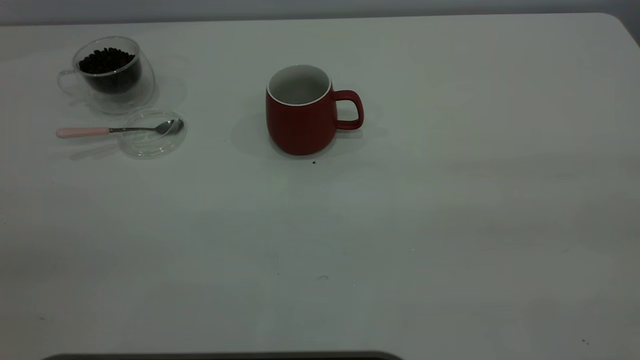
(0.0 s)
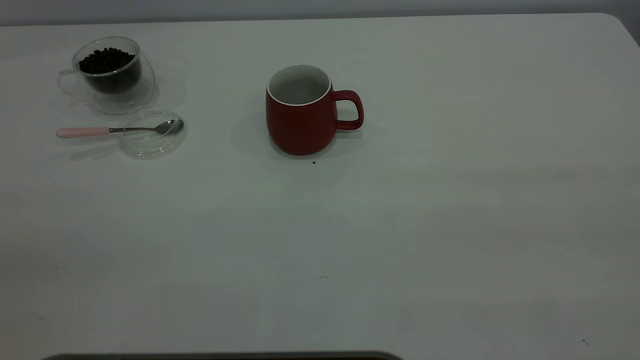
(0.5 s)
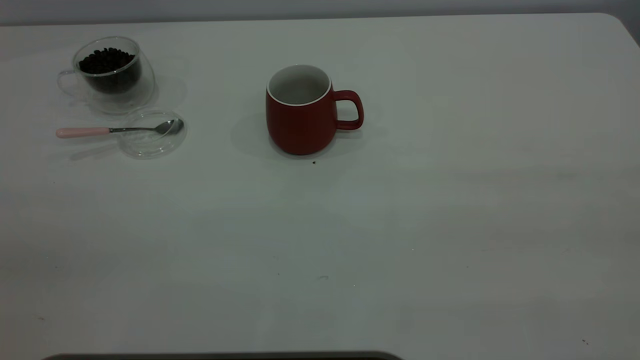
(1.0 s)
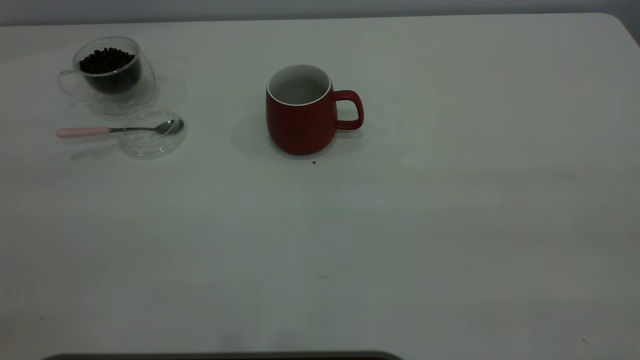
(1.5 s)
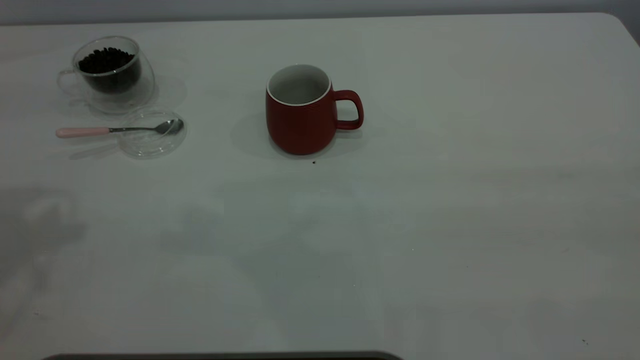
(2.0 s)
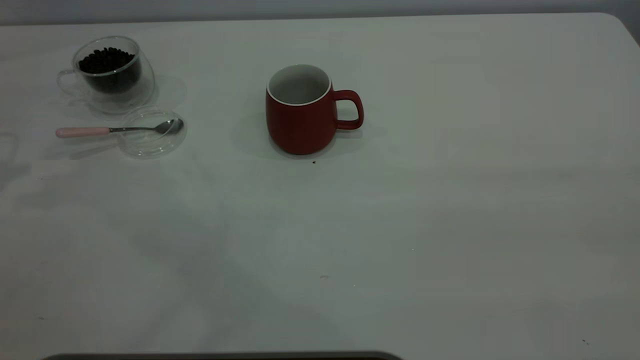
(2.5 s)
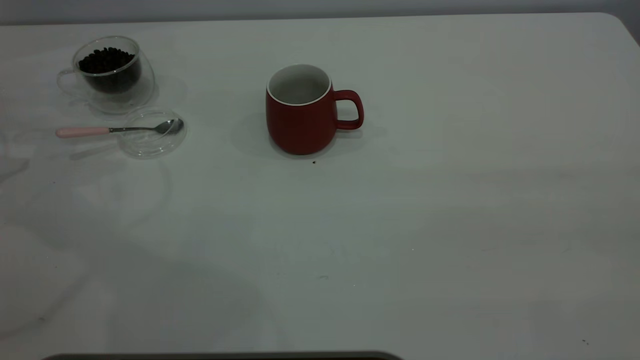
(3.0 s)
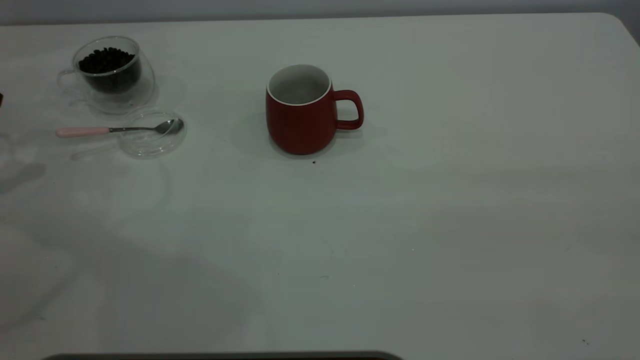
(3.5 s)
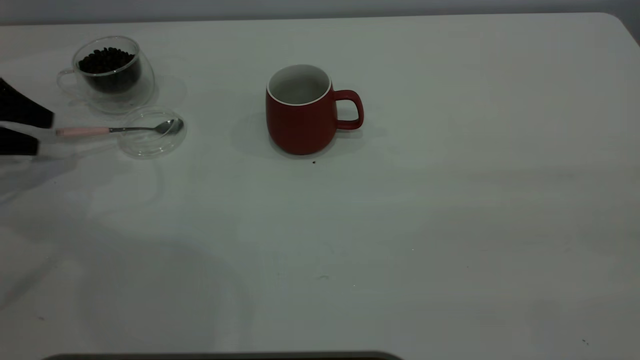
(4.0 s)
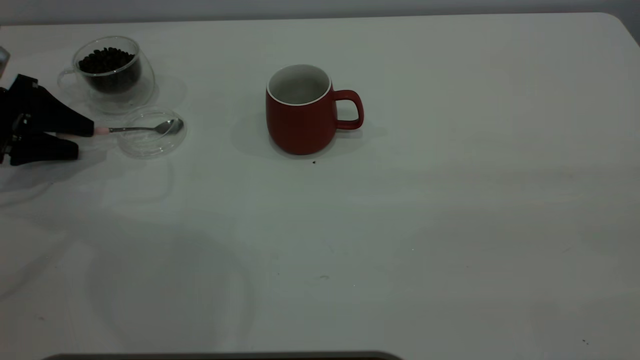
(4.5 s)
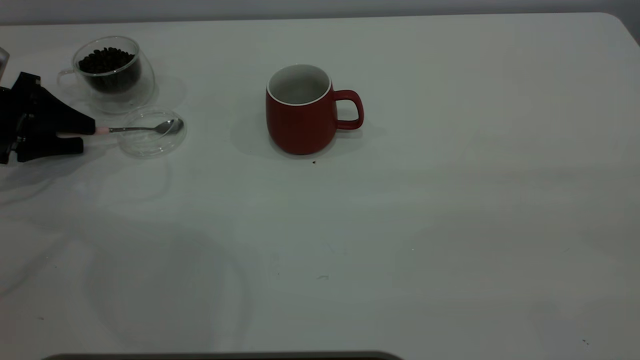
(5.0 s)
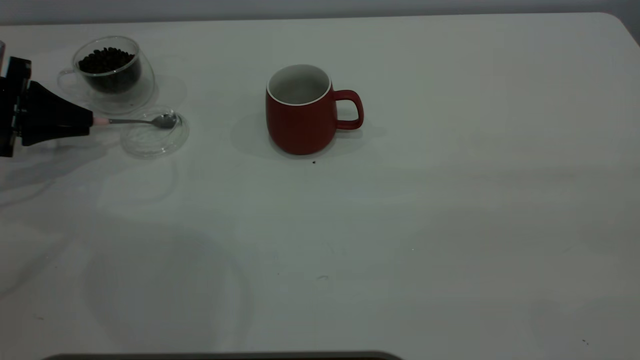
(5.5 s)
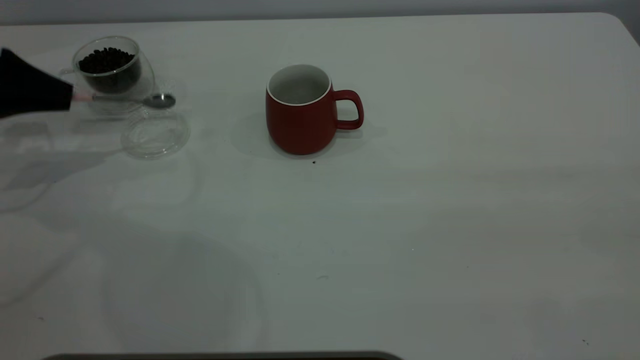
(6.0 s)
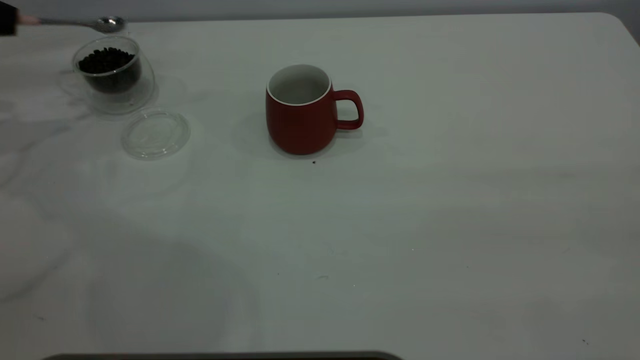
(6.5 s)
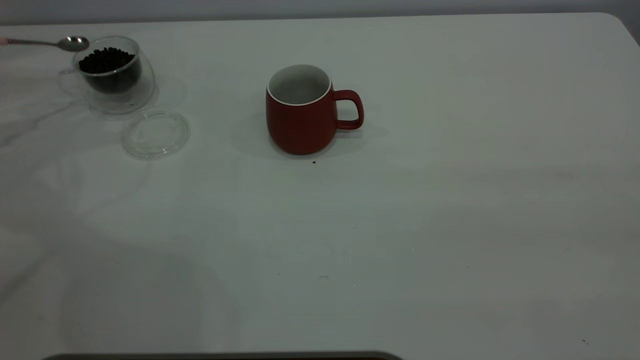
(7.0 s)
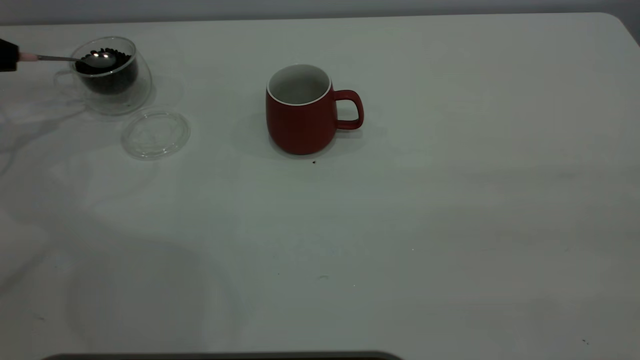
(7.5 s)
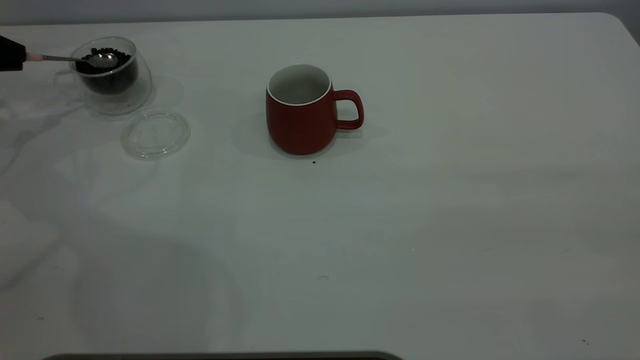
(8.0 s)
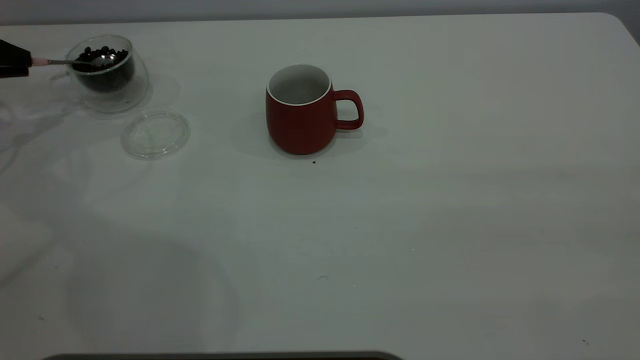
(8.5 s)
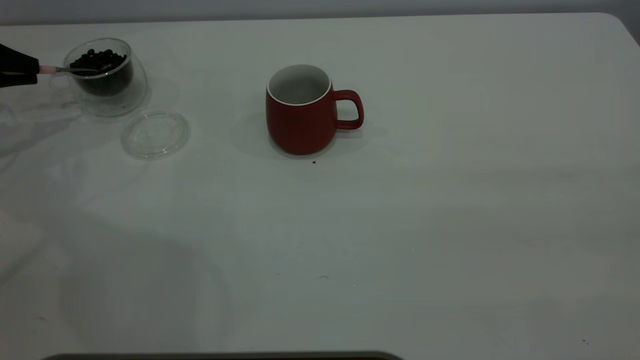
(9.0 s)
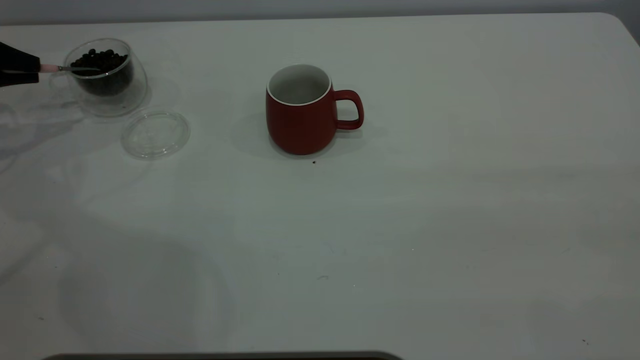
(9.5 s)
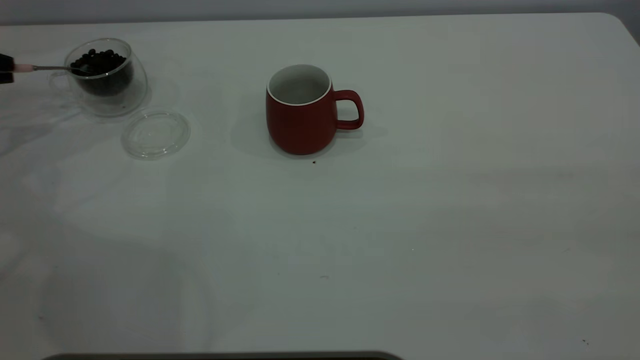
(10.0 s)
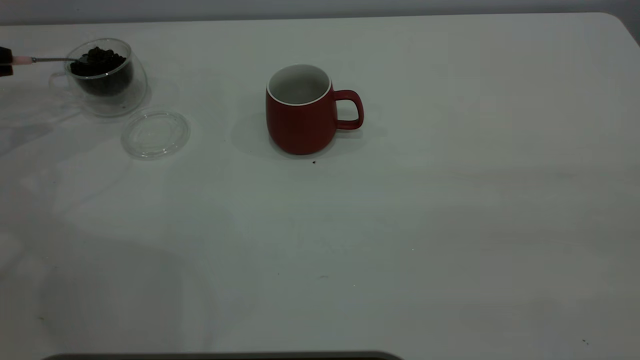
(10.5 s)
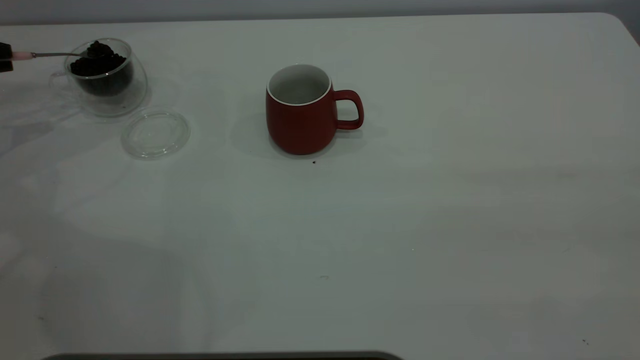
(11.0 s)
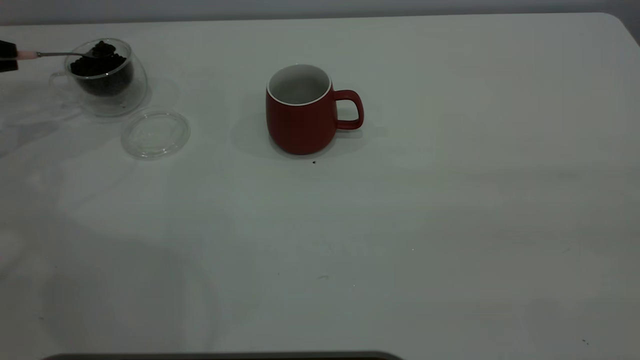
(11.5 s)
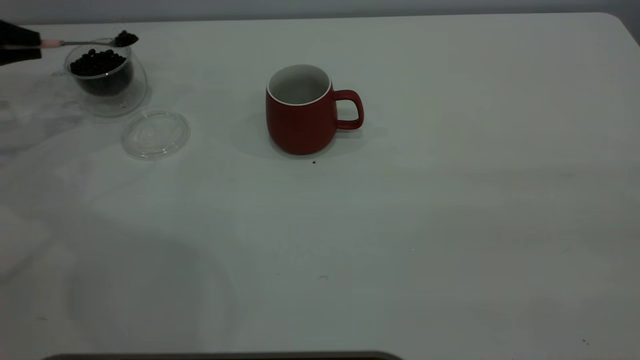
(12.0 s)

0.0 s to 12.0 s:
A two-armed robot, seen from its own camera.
Task of the whole recording: the right gripper place the red cup in the center of the table, the left gripper take the pink spoon from the cup lid and scoop out the coffee beans from the coffee cup and put them into the red cup, the left gripper put the spoon back into the cup lid.
Step, 0.0 to 6.0 s: Pick up the spoon.
2.0 to 4.0 s: The left gripper goes about 30 cm downward, to the left and forward.
4.0 to 6.0 s: The left gripper closes up.
6.0 to 8.0 s: The left gripper goes some 5 cm to the left.
8.0 to 10.0 s: The grippers move only a little.
10.0 to 12.0 s: The grippers make only small movements.

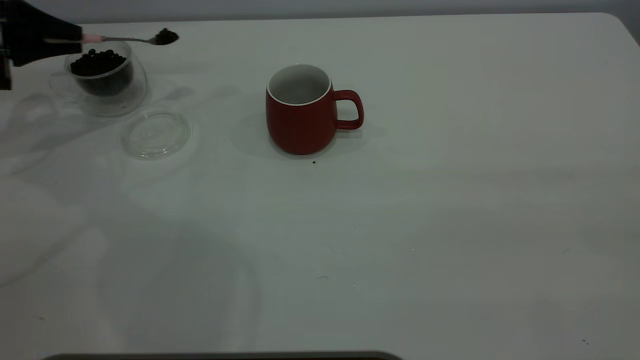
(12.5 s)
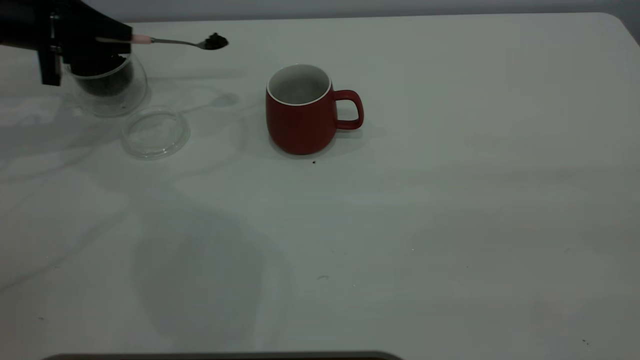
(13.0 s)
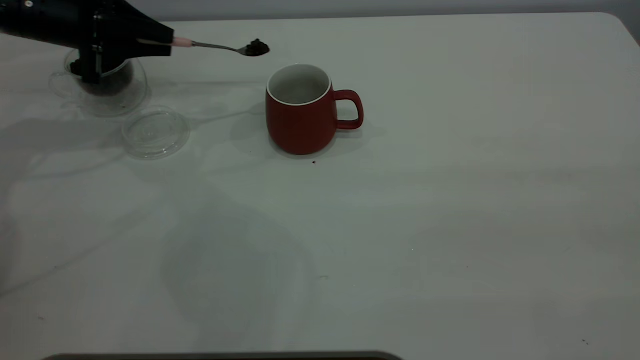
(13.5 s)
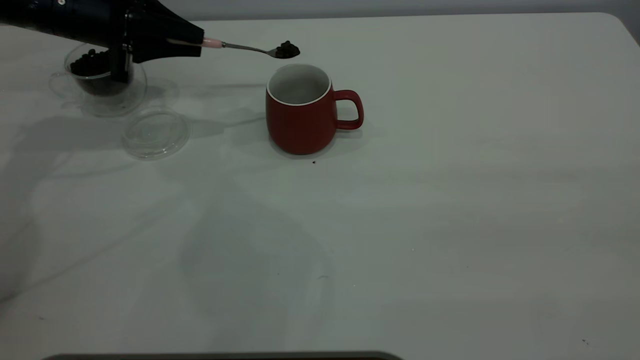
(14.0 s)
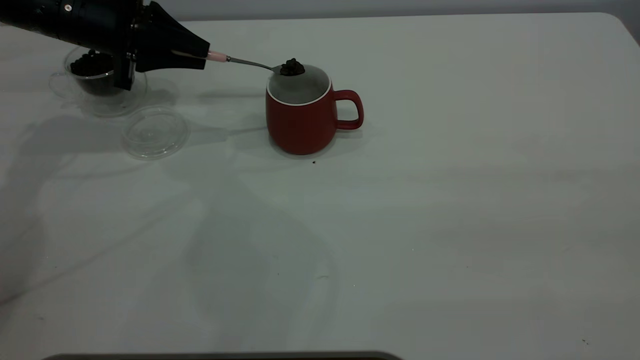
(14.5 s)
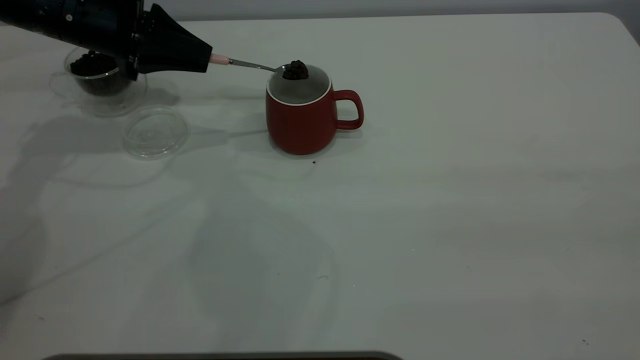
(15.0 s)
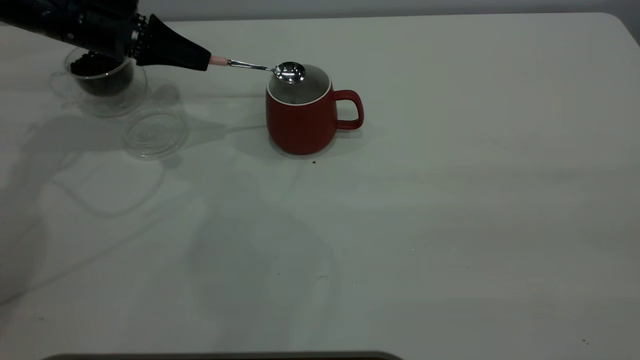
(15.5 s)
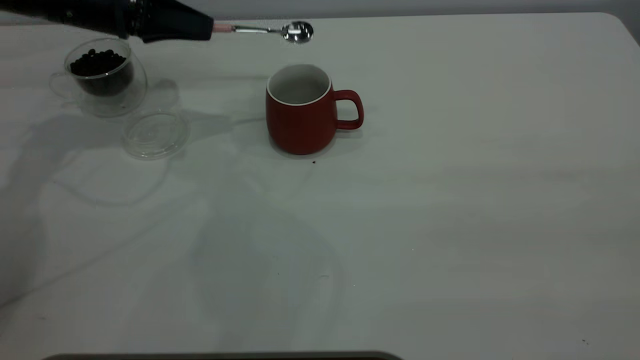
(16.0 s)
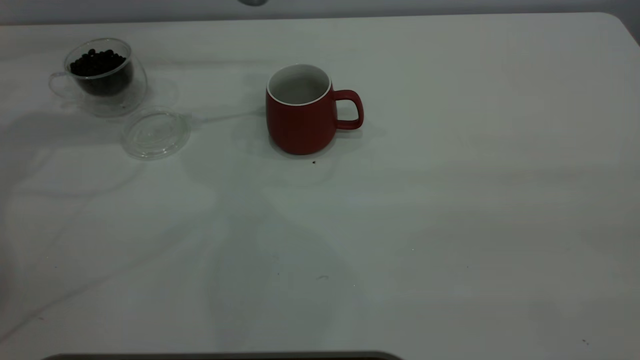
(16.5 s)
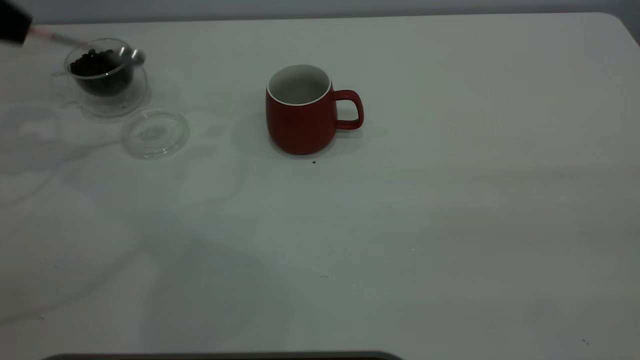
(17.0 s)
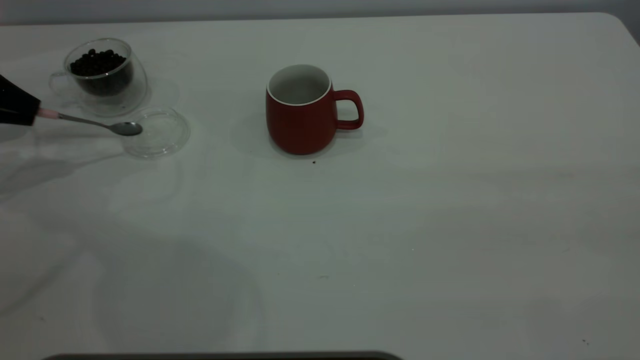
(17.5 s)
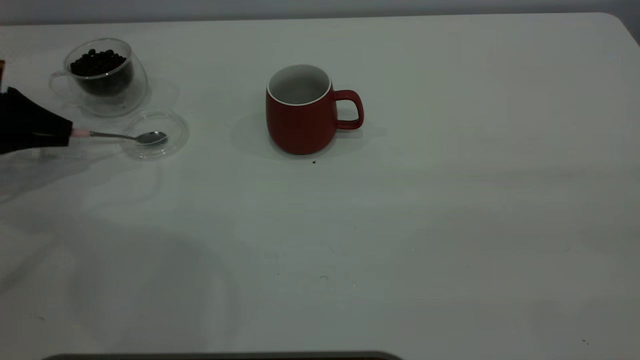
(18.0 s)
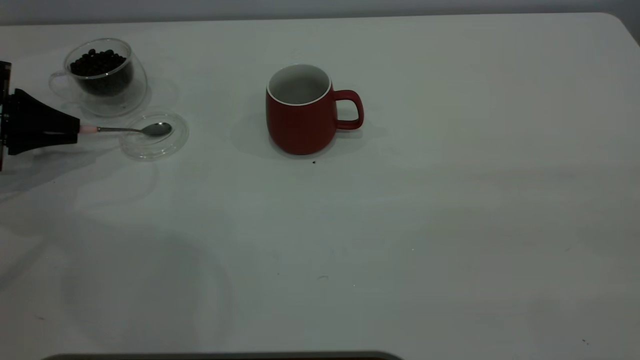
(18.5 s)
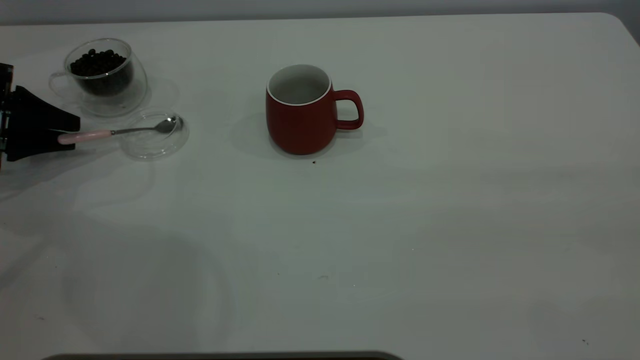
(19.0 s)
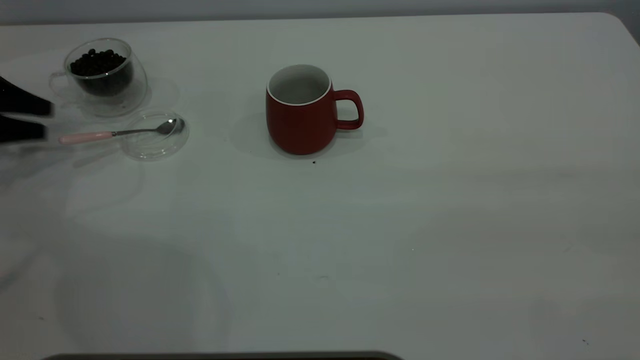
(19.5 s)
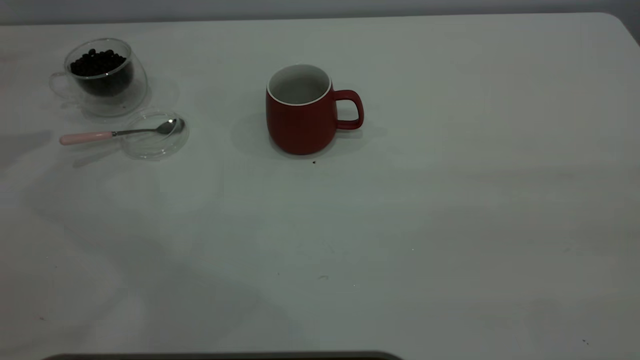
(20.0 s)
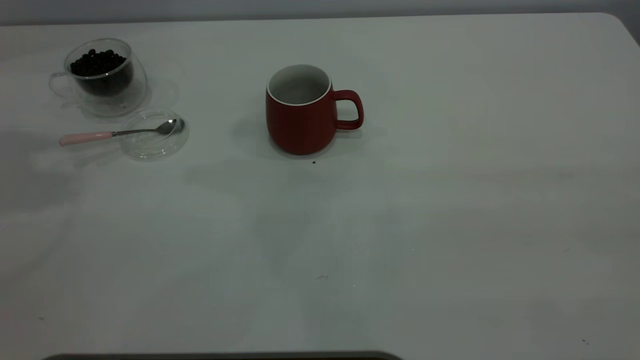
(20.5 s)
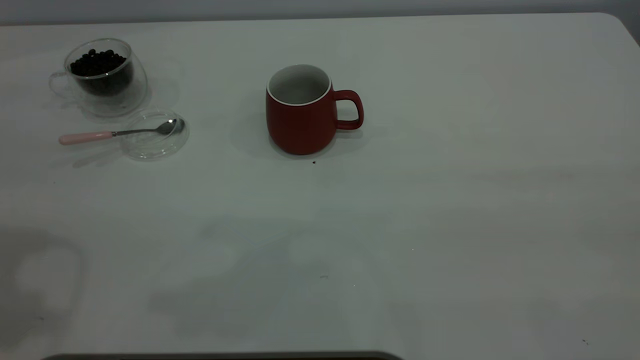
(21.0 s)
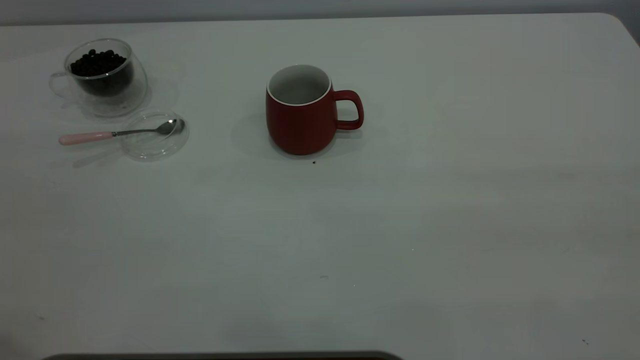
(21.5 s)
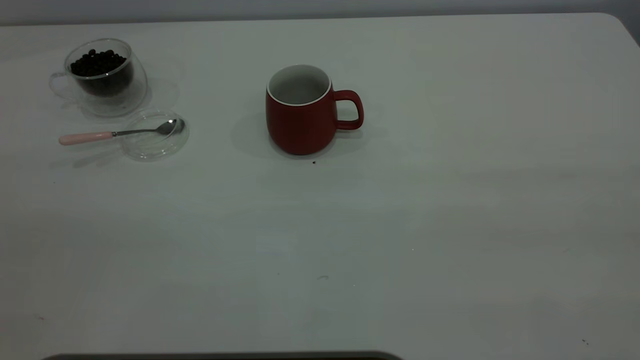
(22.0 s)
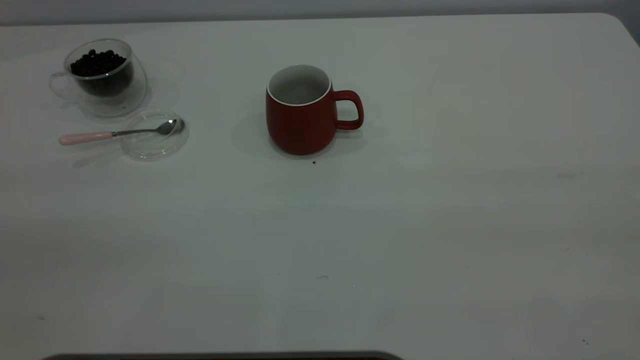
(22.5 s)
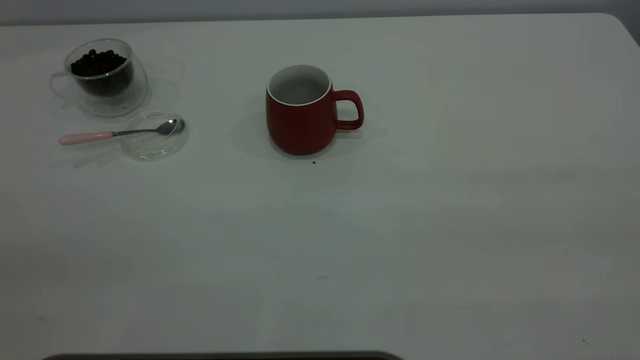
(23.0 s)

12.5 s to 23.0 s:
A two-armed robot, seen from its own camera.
Task of the whole recording: the right gripper place the red cup in the center of the table, the left gripper take the pink spoon from the cup lid and scoop out the coffee beans from the coffee cup and put them into the red cup, the left gripper put the spoon back into the cup lid.
Step, 12.5 to 16.0 s: Scoop a spoonful of beans into the cup.
Step, 16.5 to 19.5 s: Place the spoon back in its original place.
12.5 to 14.5 s: The left gripper is displaced to the right by some 15 cm.
14.5 to 16.5 s: The left gripper travels upward by roughly 10 cm.
16.5 to 19.0 s: The left gripper moves downward and to the left, roughly 20 cm, and opens.
19.0 to 21.0 s: The left gripper heads upward, backward and to the right, covering approximately 35 cm.
